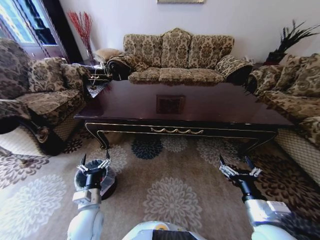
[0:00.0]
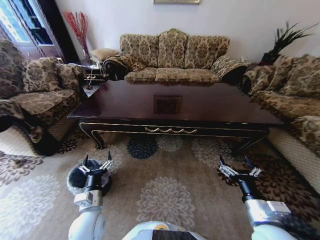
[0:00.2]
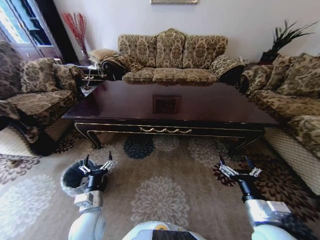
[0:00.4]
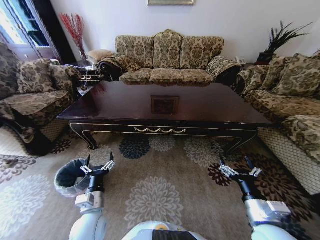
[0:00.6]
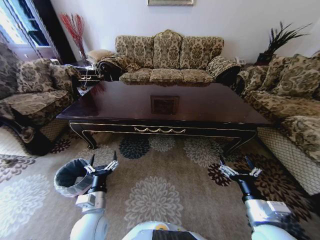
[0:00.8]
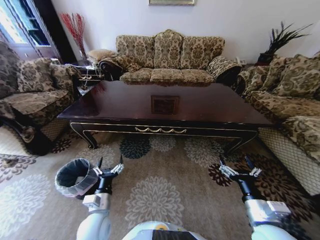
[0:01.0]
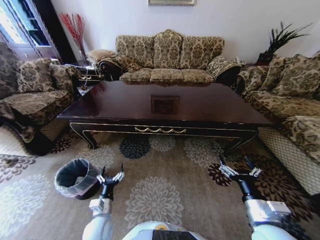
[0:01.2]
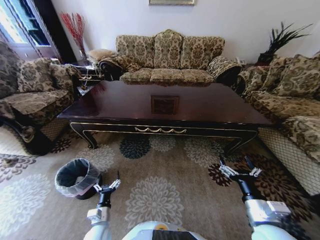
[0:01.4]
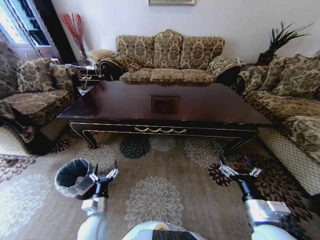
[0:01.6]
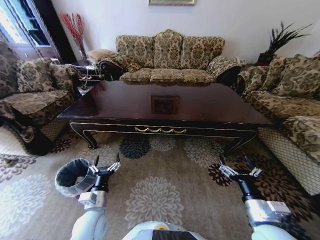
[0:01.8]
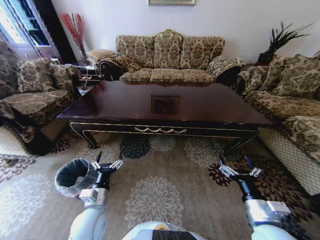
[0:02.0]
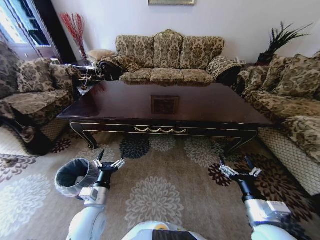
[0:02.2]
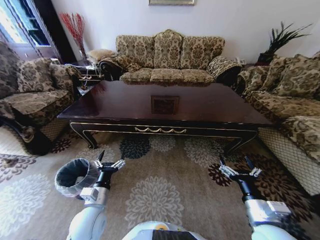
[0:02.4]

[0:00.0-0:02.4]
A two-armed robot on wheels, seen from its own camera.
Task of the whole recording: Move to the front of the table and place the trash on the table into the trash bin.
0:00.0 to 0:01.2: The left gripper goes some 10 cm downward.
0:01.2 to 0:02.4: The left gripper heads upward, covering roughly 10 cm.

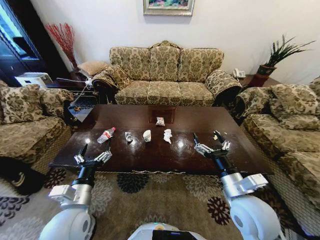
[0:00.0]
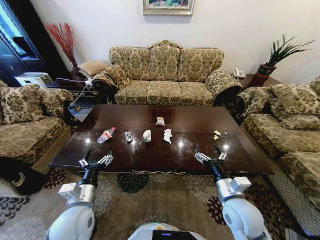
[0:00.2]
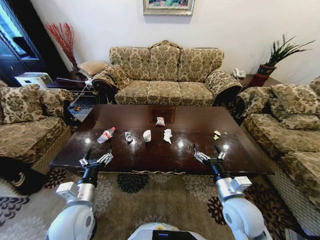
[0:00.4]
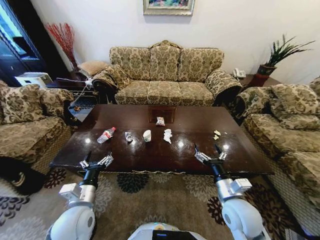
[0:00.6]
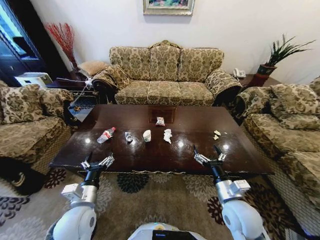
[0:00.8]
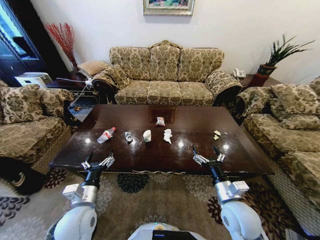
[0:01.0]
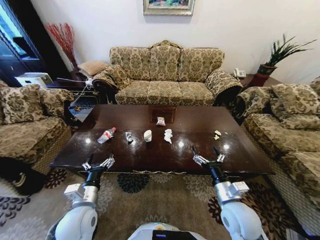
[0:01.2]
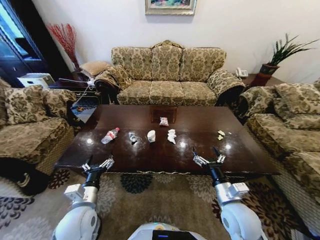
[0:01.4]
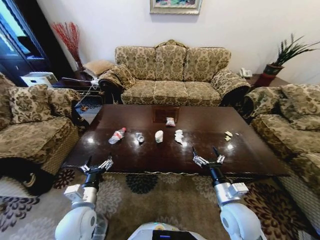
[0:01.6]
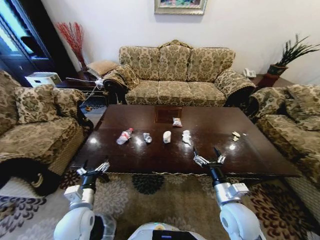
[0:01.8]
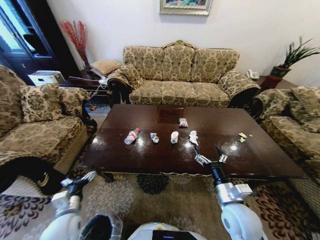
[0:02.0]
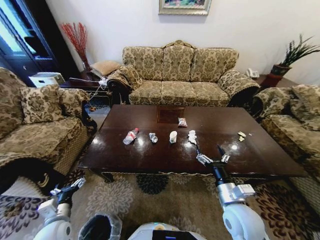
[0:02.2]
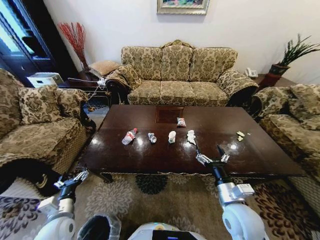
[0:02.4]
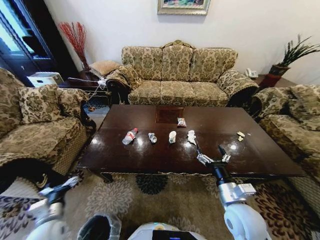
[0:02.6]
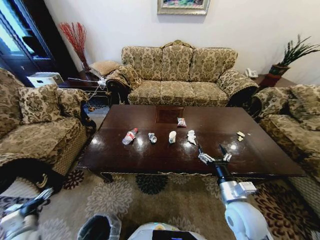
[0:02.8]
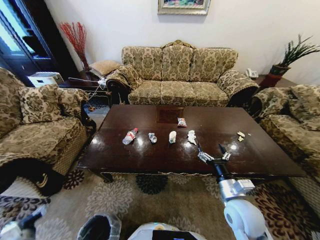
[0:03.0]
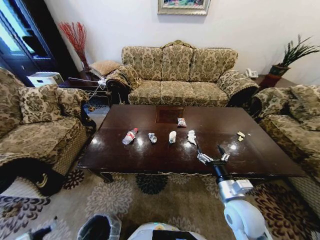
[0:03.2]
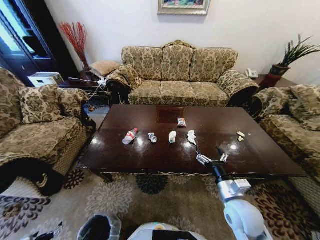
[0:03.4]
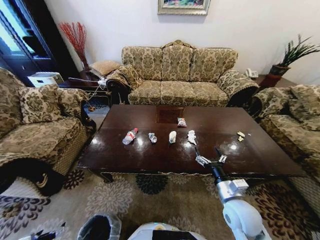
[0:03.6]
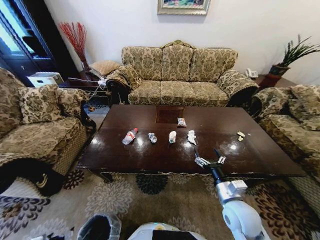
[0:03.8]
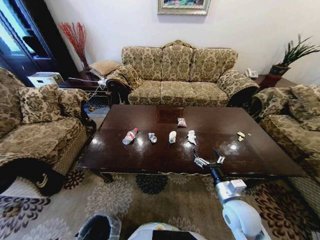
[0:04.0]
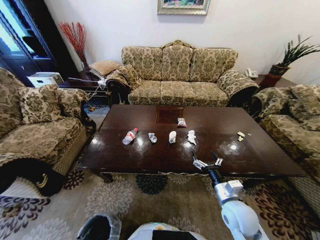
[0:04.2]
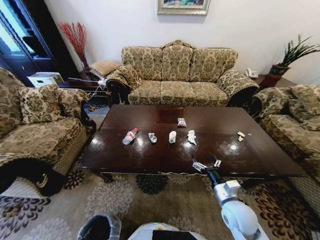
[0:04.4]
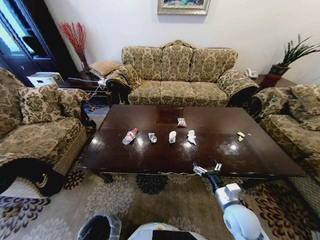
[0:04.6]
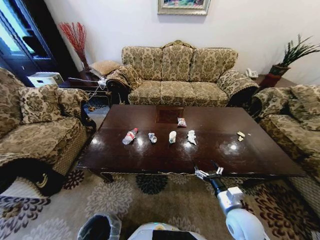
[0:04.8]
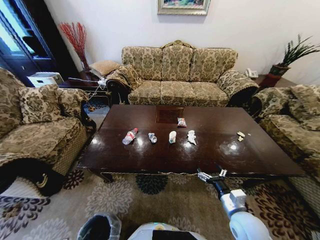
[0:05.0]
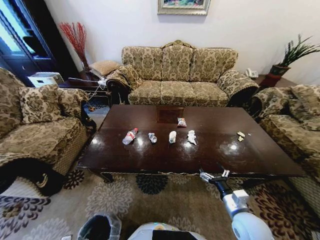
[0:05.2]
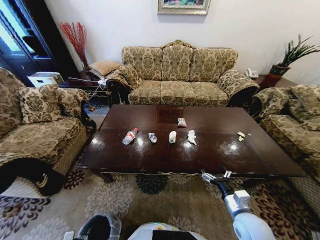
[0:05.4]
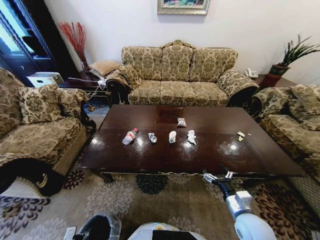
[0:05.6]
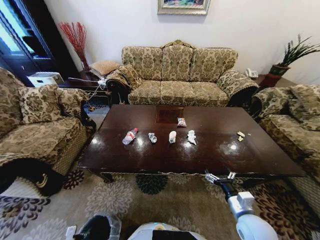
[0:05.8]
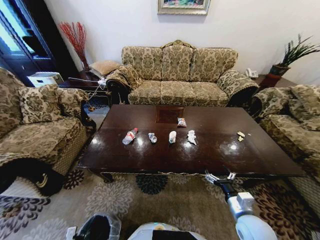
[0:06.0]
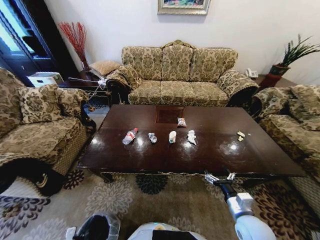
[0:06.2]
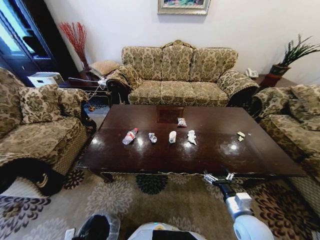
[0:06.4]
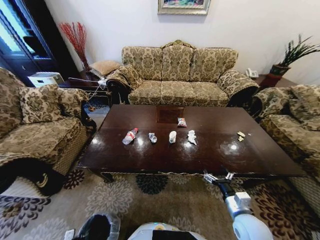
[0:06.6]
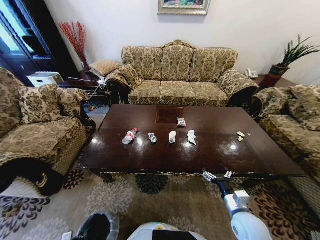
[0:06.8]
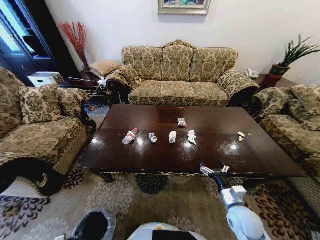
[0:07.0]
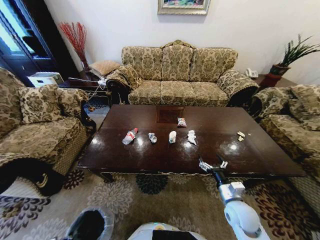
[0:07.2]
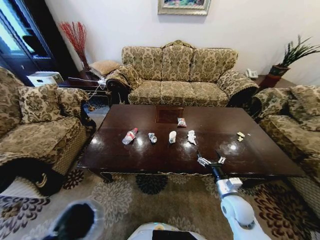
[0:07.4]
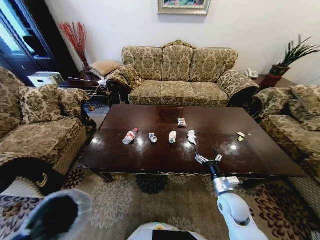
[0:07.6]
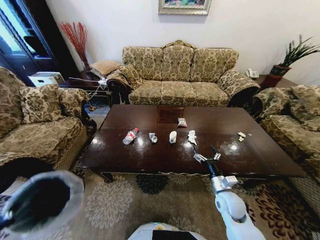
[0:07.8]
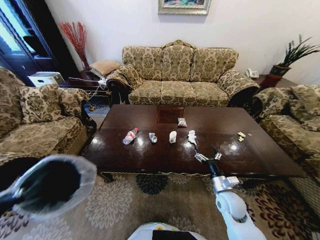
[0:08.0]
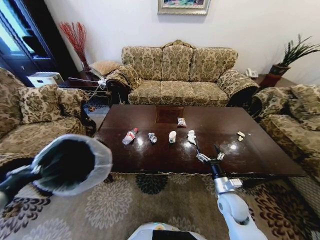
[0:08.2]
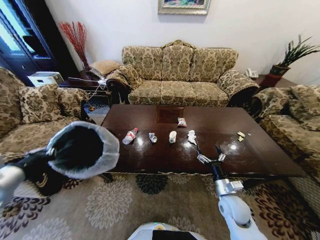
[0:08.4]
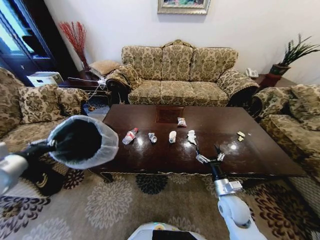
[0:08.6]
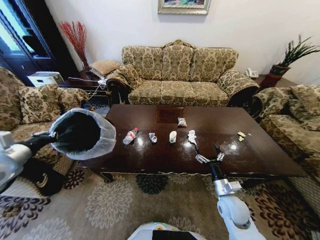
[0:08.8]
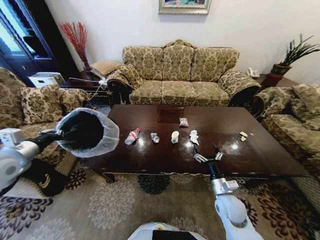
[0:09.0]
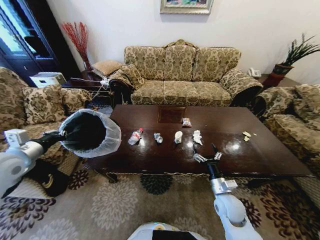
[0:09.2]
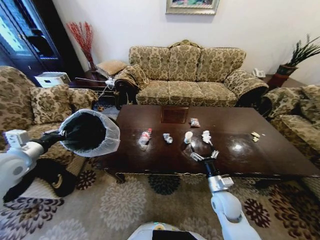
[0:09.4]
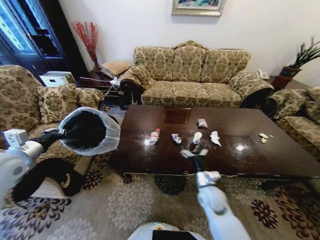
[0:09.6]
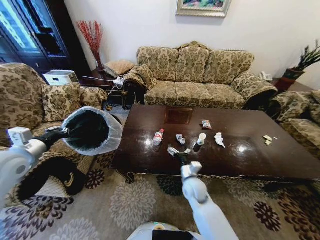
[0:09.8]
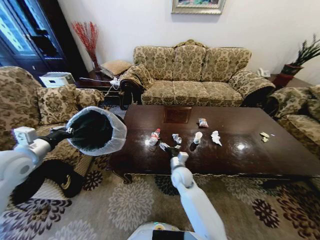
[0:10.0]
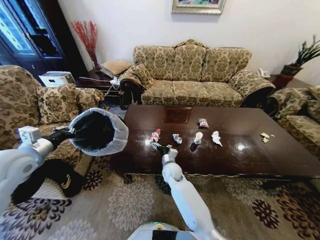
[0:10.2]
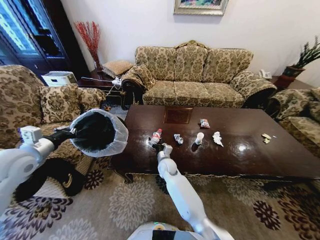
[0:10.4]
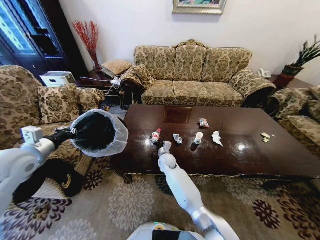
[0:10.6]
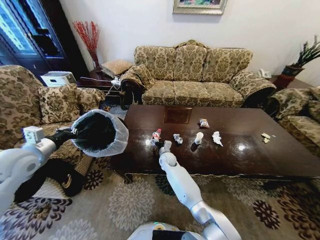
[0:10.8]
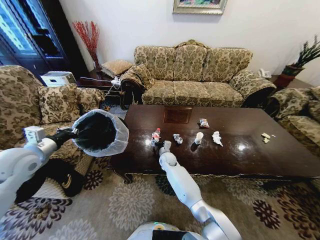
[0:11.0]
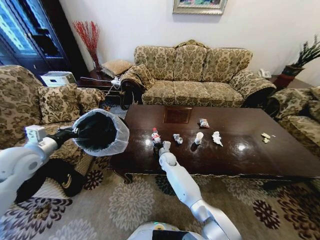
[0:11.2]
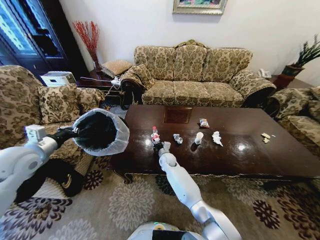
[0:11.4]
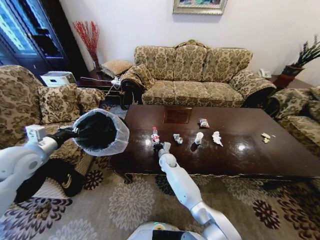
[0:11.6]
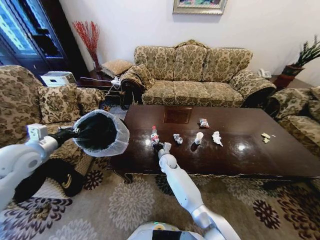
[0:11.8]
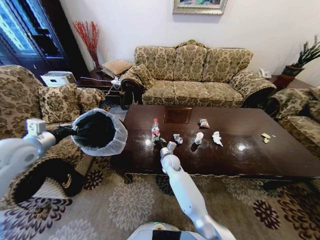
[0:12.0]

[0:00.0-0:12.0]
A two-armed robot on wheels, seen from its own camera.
Task of the whole recording: Move to the front of the table and place the trash on the table into the trash bin.
0:01.6 to 0:03.0: The left gripper travels to the left, downward and backward by roughly 25 cm.
0:03.0 to 0:04.4: The left gripper goes some 10 cm downward and backward.
0:04.4 to 0:06.0: The right gripper changes place by approximately 5 cm.
0:06.0 to 0:07.6: The right gripper is displaced forward by about 10 cm; the left gripper heads upward, covering about 30 cm, and closes.
0:07.6 to 0:09.0: The left gripper travels forward and upward by roughly 35 cm.
0:09.0 to 0:10.4: The right gripper goes some 30 cm to the left and forward.
0:10.4 to 0:12.0: The right gripper closes up.

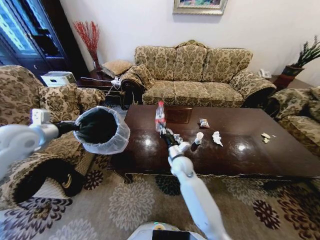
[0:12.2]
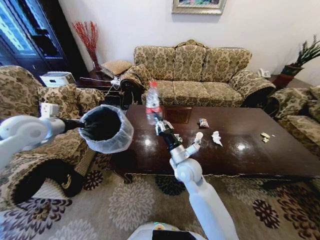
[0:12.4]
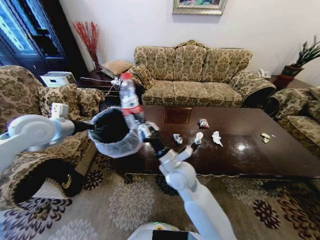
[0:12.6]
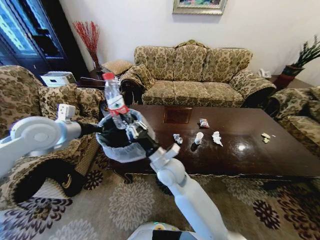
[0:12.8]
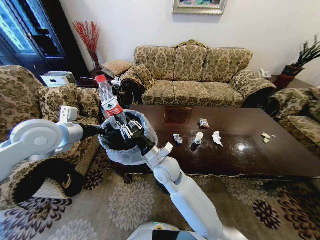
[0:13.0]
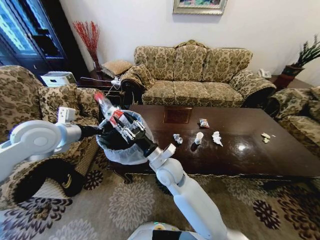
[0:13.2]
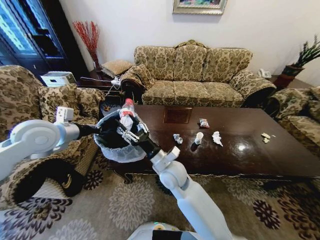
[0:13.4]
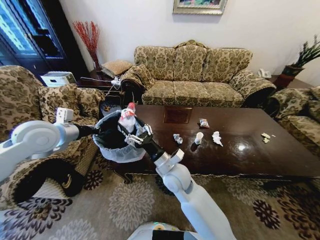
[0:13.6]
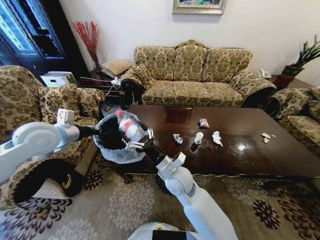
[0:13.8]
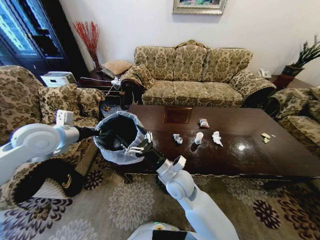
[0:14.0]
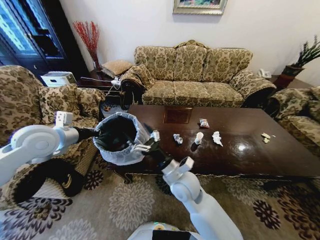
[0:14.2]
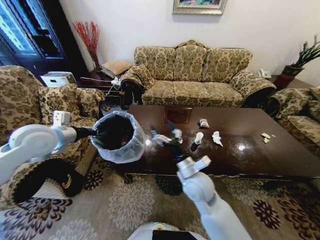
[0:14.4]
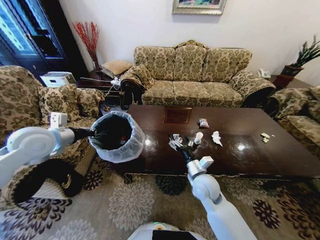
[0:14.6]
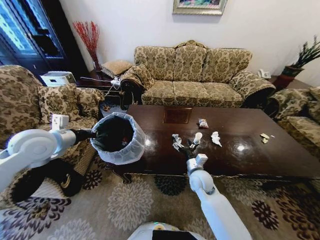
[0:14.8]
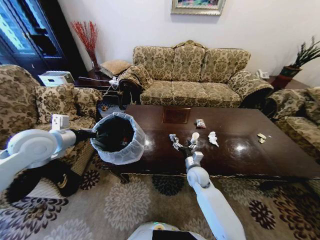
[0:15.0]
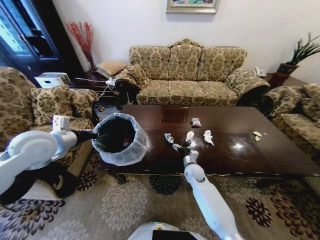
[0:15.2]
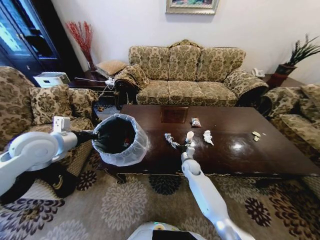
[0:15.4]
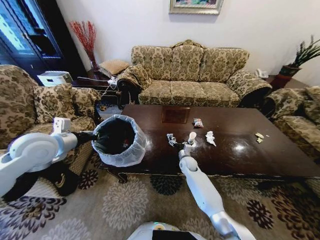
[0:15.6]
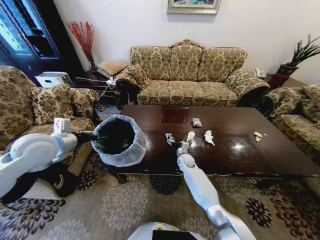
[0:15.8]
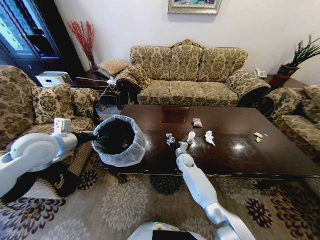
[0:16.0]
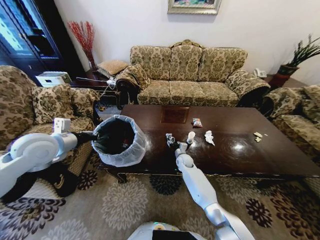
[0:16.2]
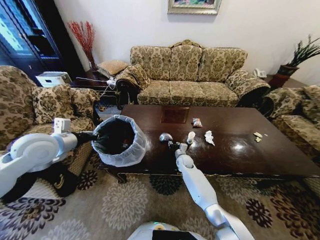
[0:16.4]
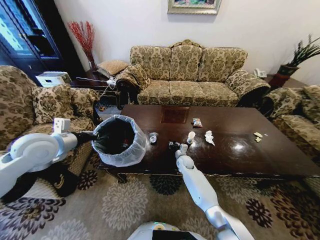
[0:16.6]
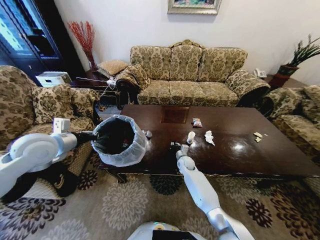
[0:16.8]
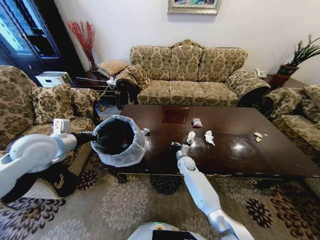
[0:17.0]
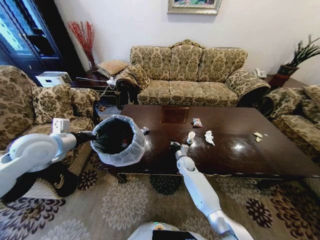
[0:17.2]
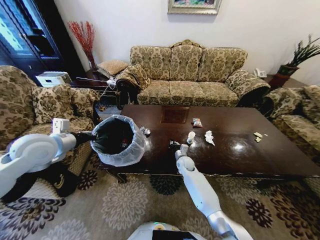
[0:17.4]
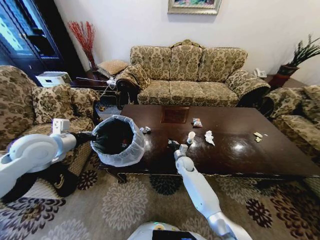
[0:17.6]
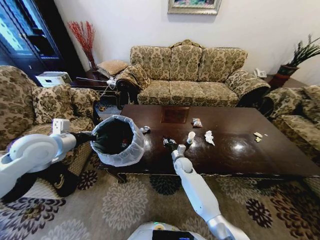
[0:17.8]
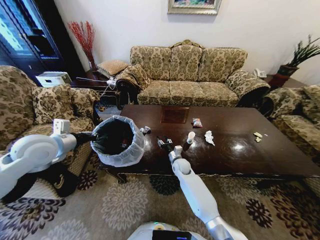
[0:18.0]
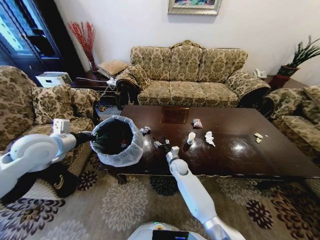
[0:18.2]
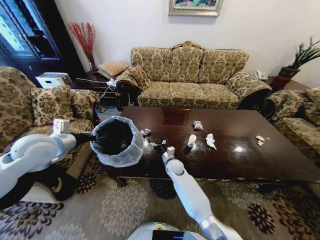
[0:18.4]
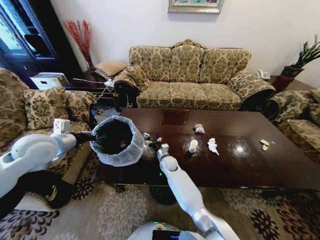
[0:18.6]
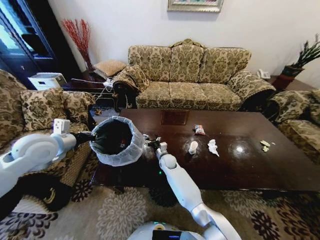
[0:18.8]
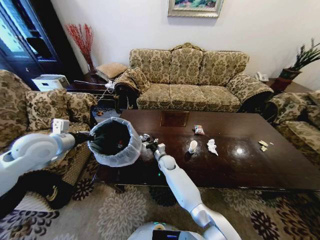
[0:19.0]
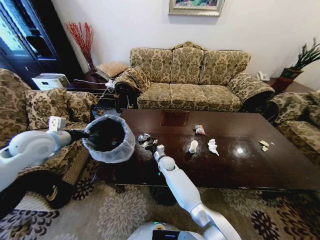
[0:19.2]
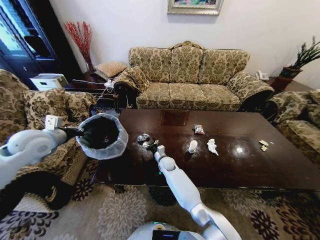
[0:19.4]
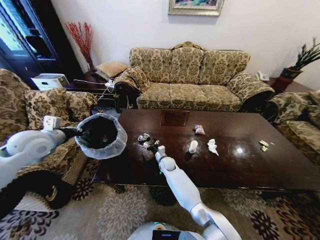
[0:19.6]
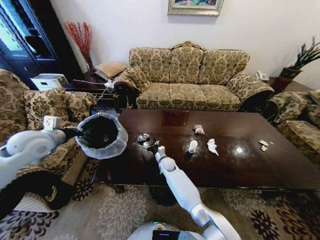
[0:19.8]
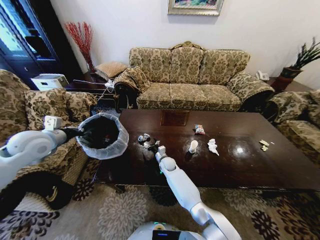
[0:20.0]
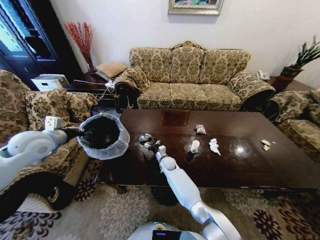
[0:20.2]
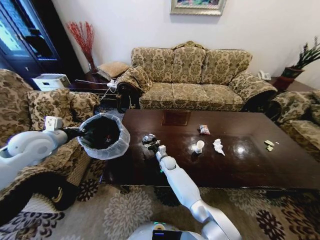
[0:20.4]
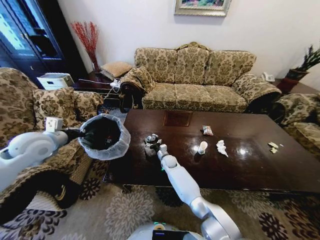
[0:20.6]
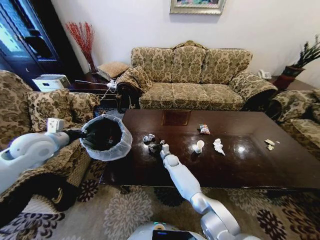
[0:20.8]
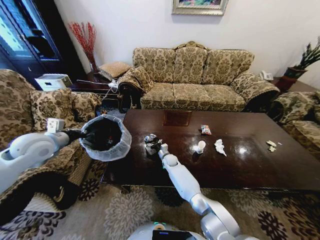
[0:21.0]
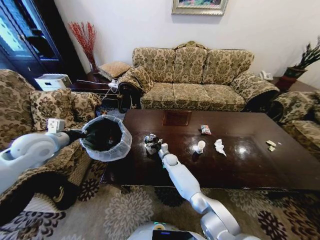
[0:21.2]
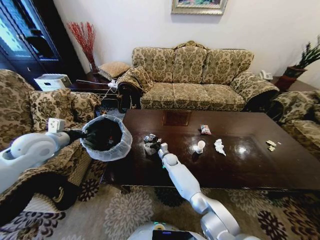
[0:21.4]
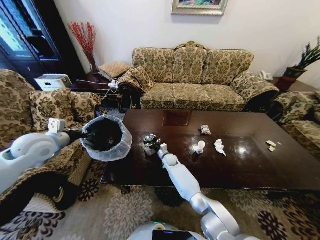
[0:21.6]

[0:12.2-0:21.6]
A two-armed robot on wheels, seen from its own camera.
Task of the whole recording: Move to the front of the table and place the trash on the table into the trash bin.
0:12.2 to 0:13.8: The left gripper heads to the right, covering roughly 10 cm. Meanwhile the right gripper shifts about 10 cm backward and upward, and opens up.
0:13.8 to 0:15.4: The right gripper moves downward, forward and to the right, some 25 cm.
0:15.4 to 0:17.0: The right gripper closes.
0:17.0 to 0:18.4: The right gripper heads to the left, covering approximately 10 cm, and opens its fingers.
0:18.4 to 0:20.0: The right gripper moves some 5 cm.
